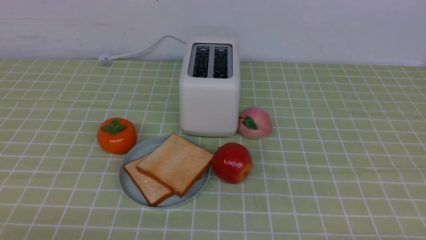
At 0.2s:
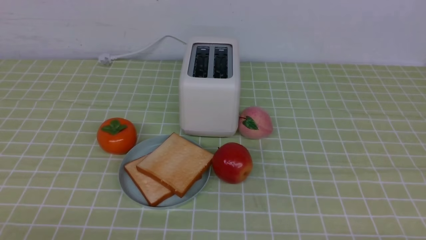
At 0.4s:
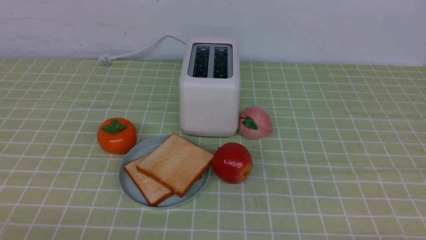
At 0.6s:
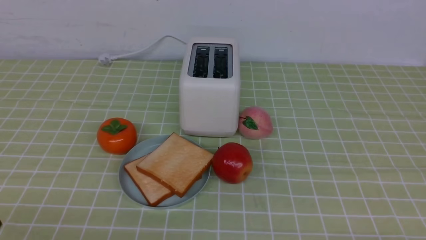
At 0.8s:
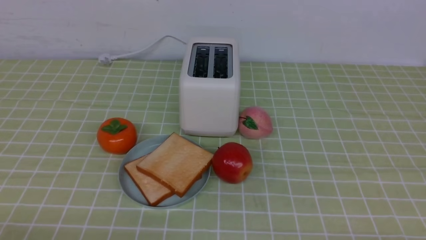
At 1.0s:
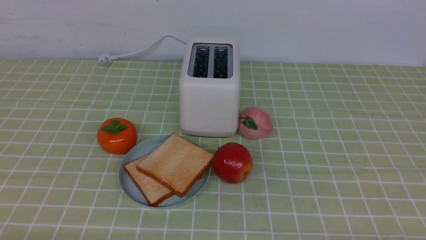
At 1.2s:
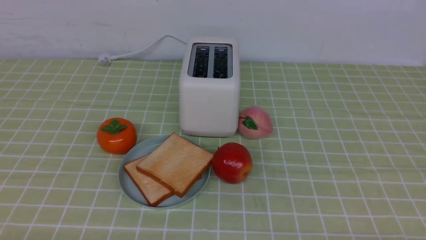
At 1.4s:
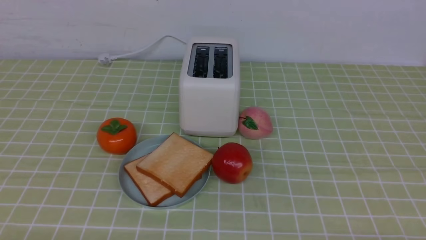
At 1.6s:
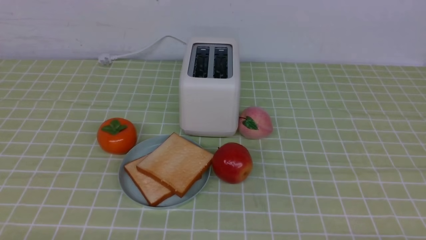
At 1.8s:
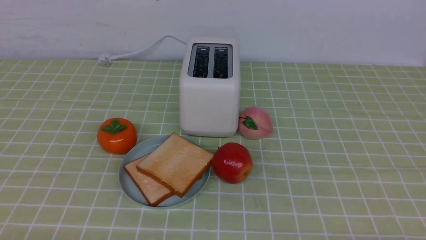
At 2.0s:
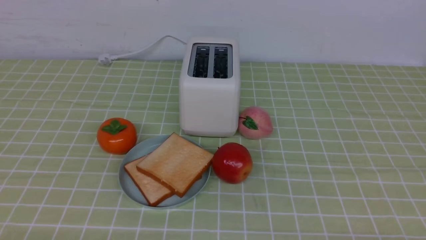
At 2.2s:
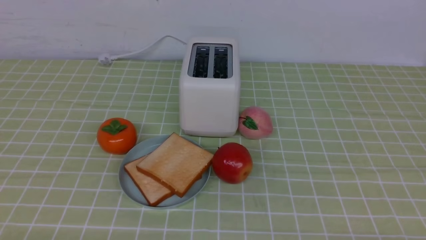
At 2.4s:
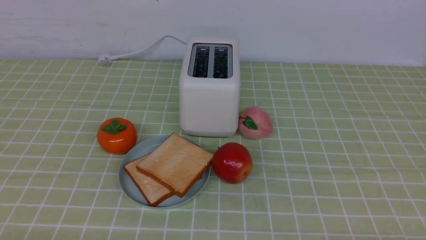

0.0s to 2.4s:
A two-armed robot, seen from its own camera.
Task of the whole recording: take toasted bread from bread machine on green coffee tablecloth place on plate.
1.2s to 2.4s: Both grippers stay about where they are.

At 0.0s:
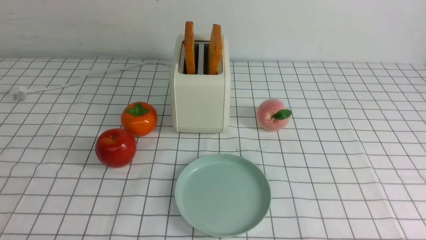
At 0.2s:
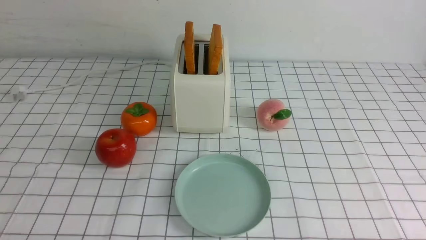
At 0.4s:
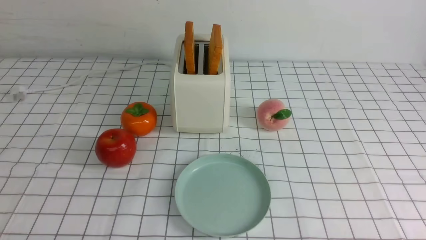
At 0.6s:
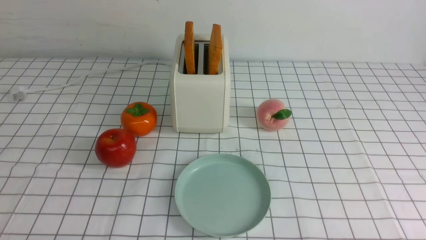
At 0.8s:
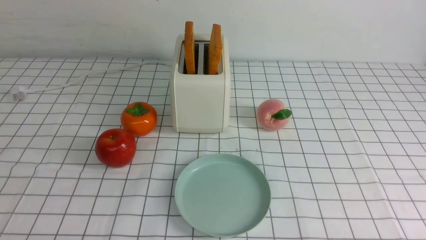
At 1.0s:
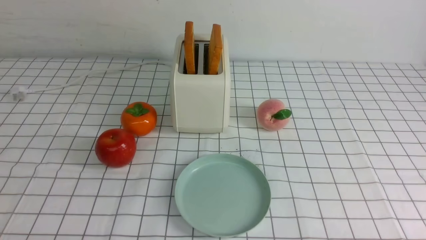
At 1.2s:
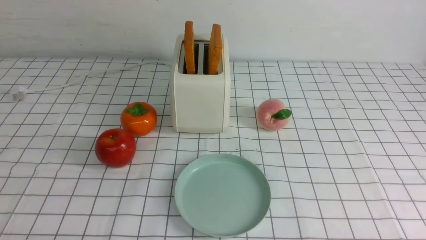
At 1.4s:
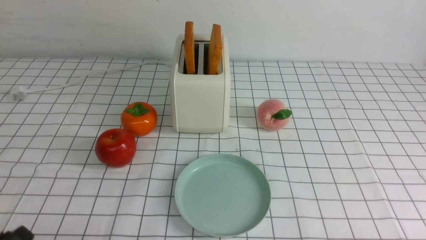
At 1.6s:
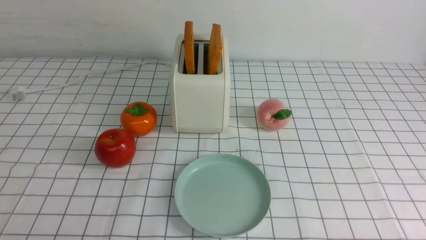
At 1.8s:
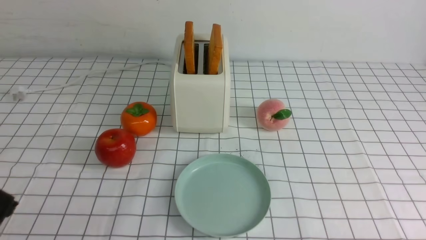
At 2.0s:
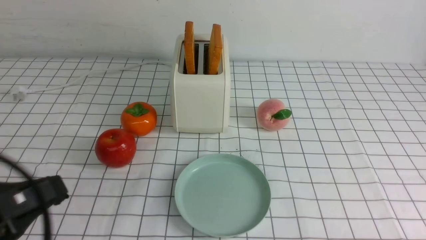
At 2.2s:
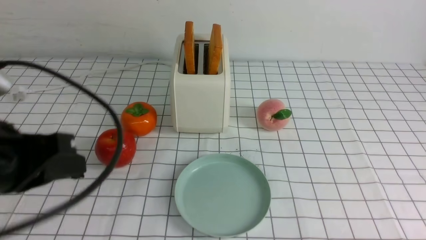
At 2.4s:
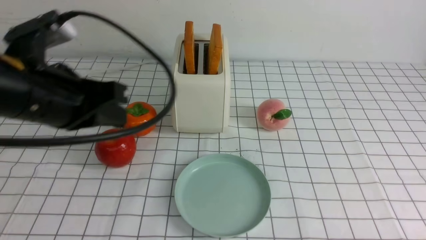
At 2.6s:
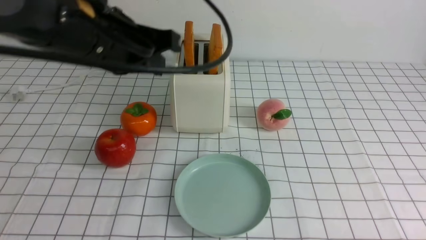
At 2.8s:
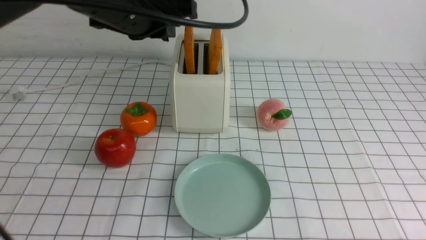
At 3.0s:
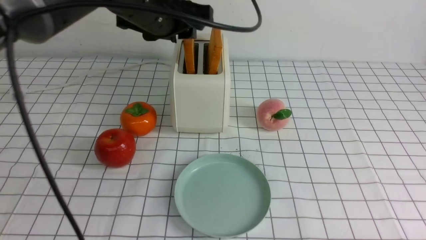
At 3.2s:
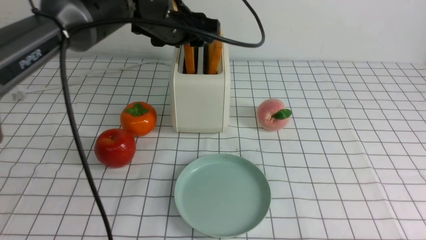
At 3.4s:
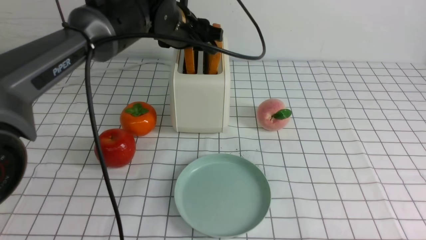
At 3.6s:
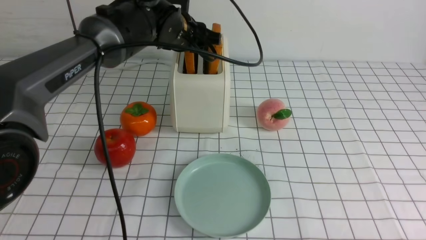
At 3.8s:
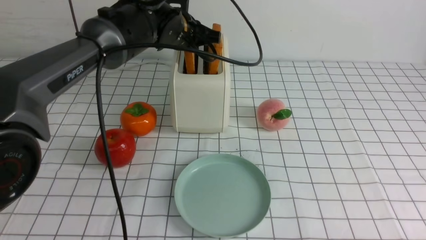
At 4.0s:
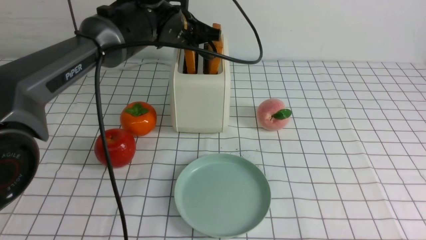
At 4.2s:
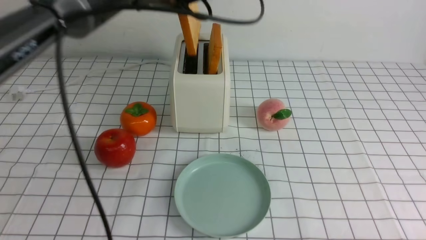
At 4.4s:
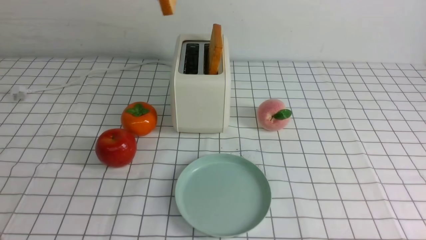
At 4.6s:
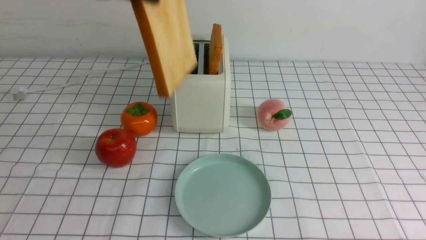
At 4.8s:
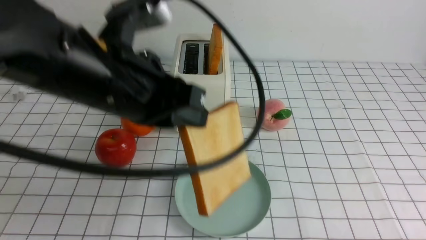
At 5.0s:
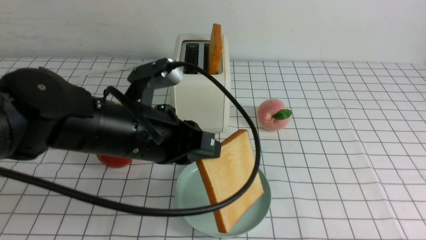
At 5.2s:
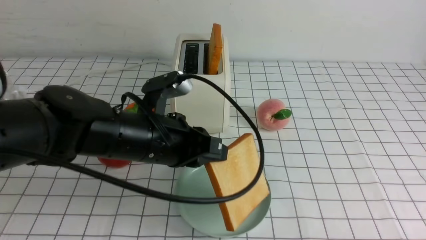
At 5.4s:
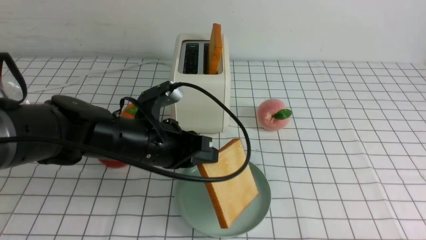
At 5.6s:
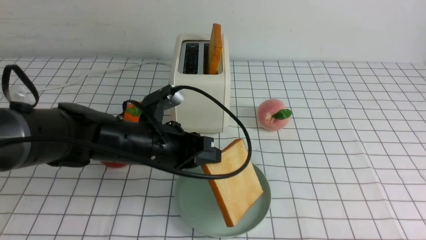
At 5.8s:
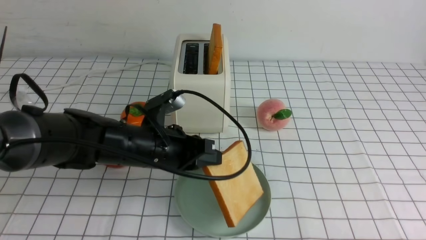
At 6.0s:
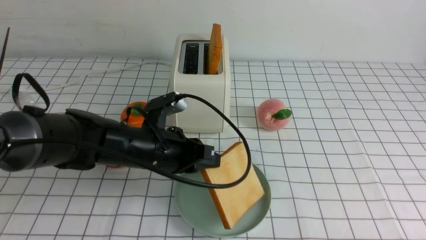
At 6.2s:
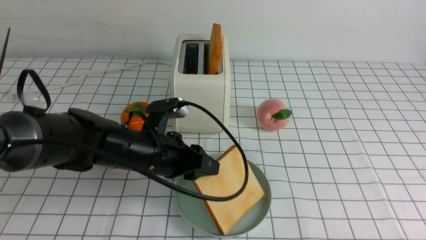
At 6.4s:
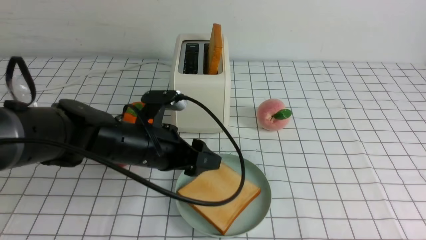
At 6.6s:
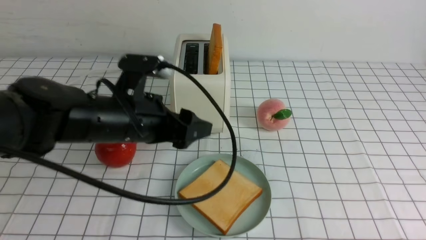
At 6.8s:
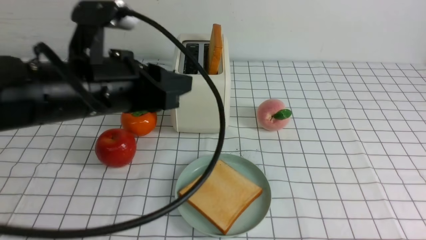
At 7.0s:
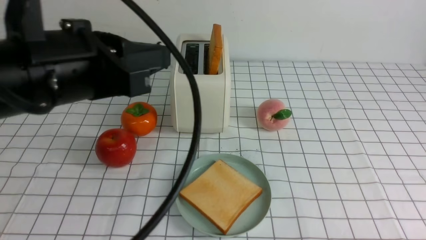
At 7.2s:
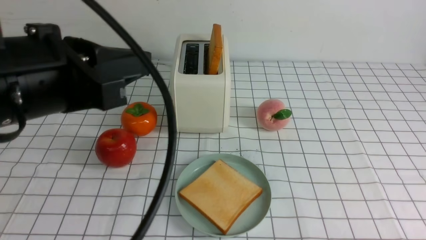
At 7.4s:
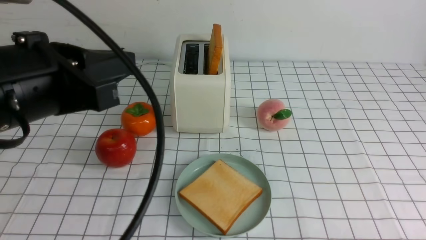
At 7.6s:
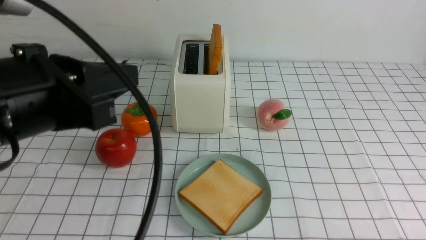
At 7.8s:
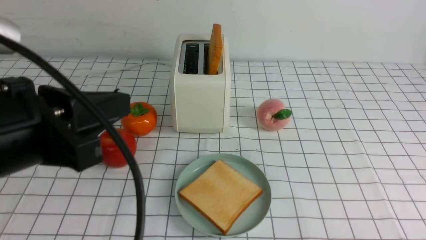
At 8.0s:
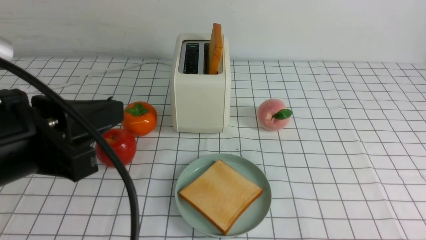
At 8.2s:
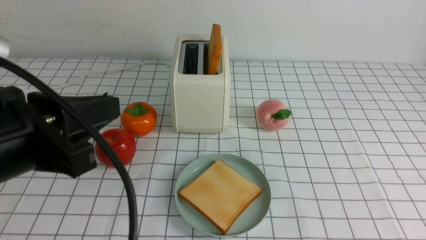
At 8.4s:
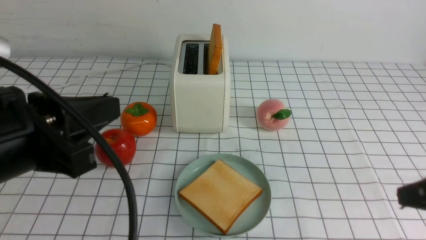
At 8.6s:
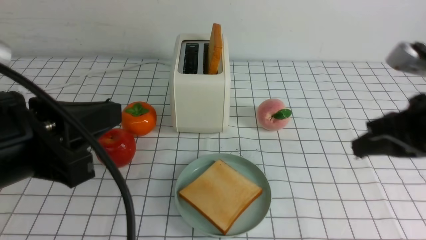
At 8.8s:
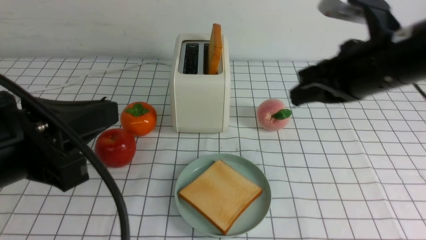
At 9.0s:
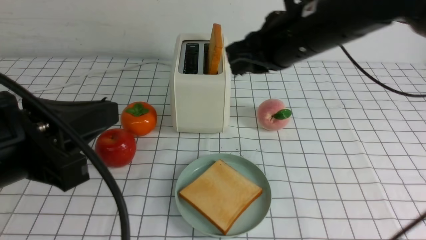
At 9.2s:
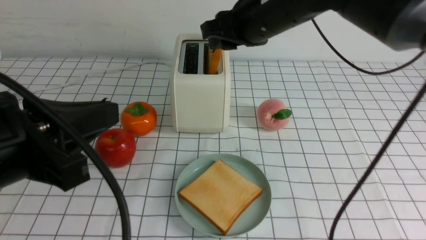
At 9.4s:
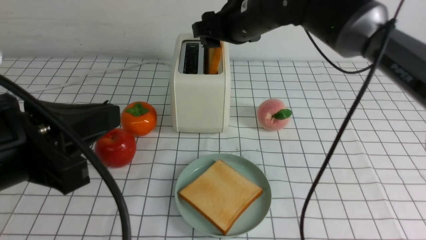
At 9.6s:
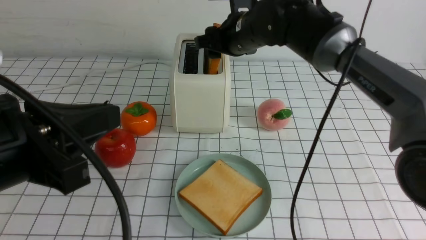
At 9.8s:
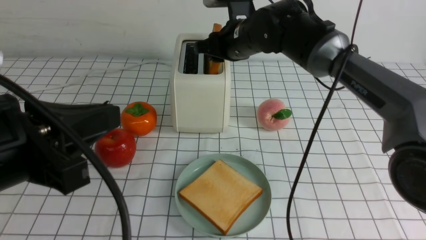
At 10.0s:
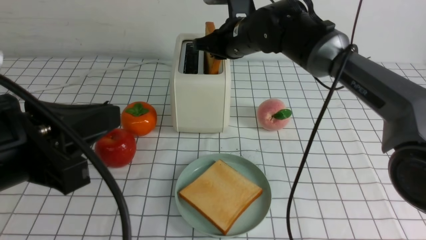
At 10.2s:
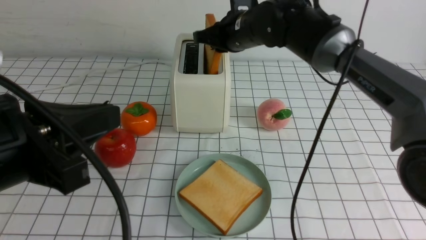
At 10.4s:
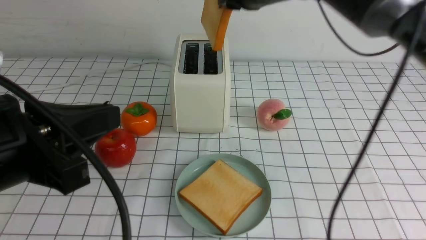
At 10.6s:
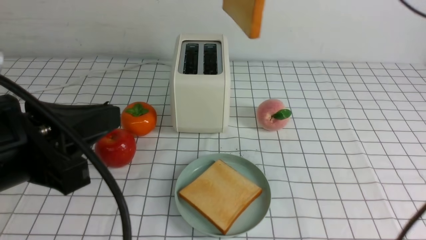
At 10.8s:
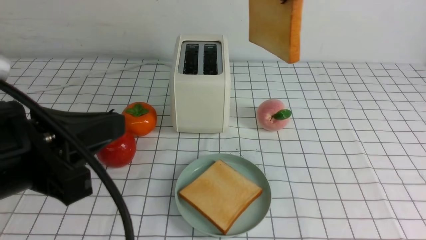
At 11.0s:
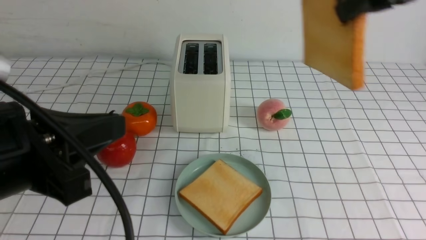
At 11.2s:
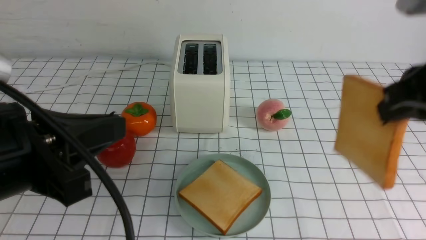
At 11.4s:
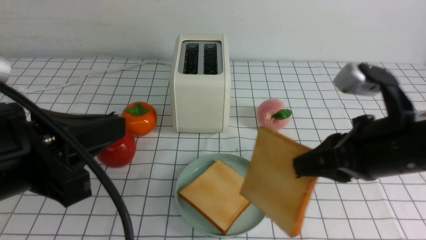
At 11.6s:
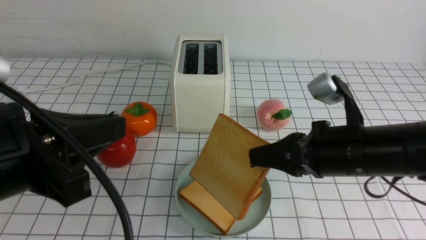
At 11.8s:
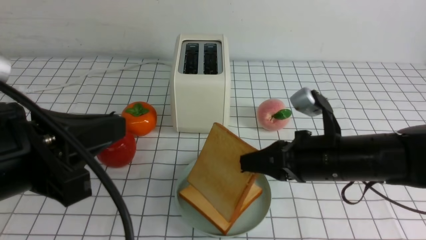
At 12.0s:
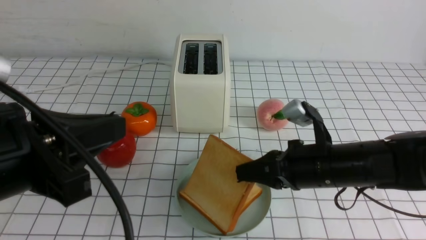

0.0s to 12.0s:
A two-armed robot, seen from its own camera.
Task of the whole recording: take toasted bread from bread machine on white checkered table place on plate.
Step, 0.0s to 4.0s: use the left arm to take out a slice of bread.
Step, 4.2s to 6.4s: use the left arm to put a slice of bread into the empty plate.
Step, 6.6s to 10.2s: use the right arm to take out a slice of bread.
1.6s to 3.0s: The left gripper is displaced forward, to the right and upward by some 40 cm, and closes, then reopens.
3.0s to 4.4s: The left gripper moves upward and backward, some 10 cm, and closes its fingers.
4.4s to 6.0s: The left gripper heads downward, covering roughly 25 cm.
6.0s to 7.6s: The left gripper travels upward, backward and to the left by approximately 25 cm, and closes up.
7.6s to 9.0s: The right gripper goes approximately 40 cm forward, upward and to the left.
9.0s to 10.4s: The right gripper moves forward, roughly 5 cm, and opens, then closes once more.
10.4s to 12.0s: The right gripper is displaced downward and backward by about 25 cm.

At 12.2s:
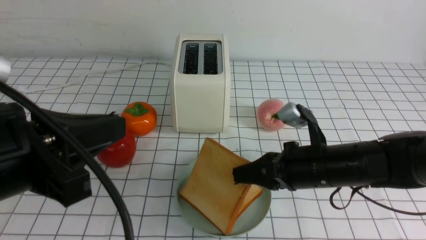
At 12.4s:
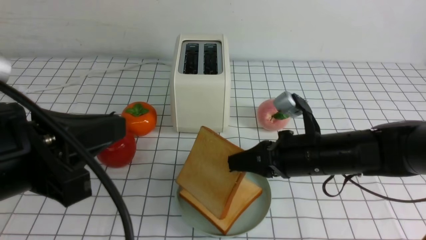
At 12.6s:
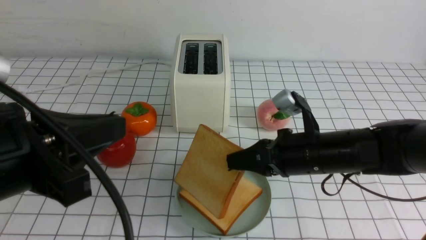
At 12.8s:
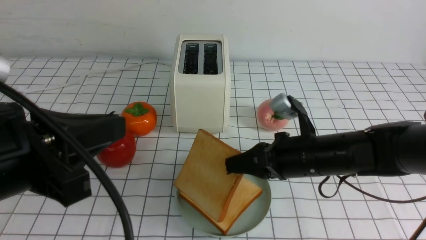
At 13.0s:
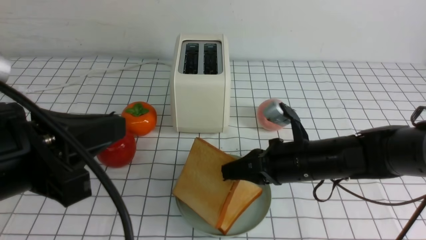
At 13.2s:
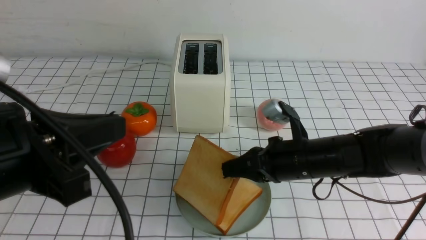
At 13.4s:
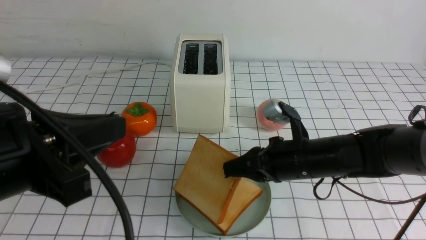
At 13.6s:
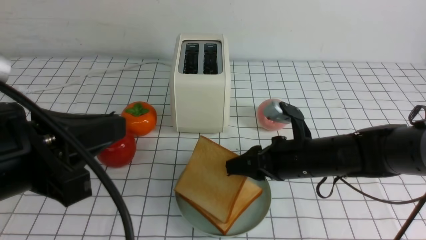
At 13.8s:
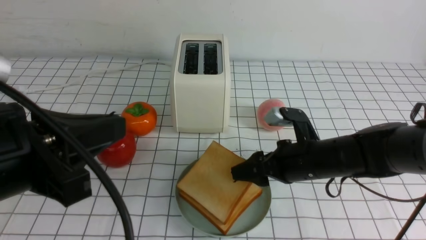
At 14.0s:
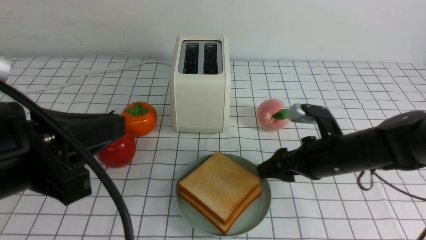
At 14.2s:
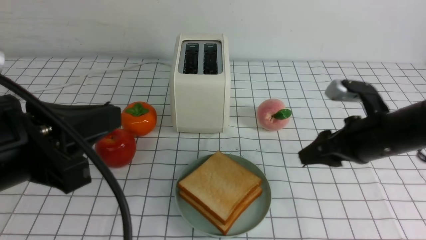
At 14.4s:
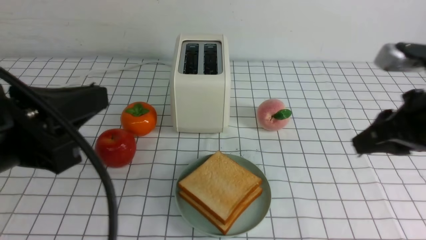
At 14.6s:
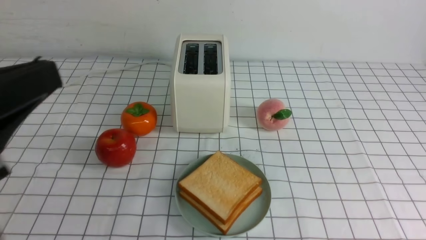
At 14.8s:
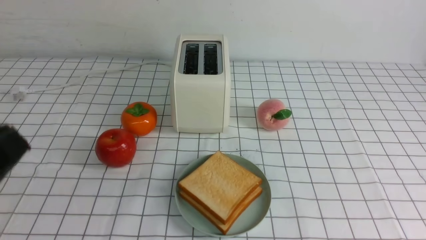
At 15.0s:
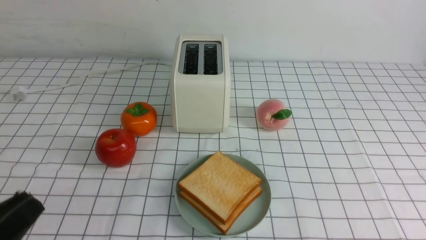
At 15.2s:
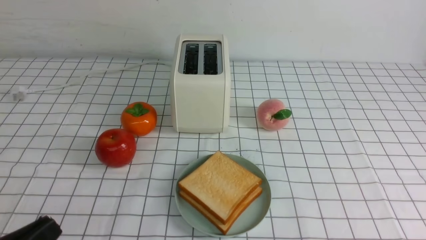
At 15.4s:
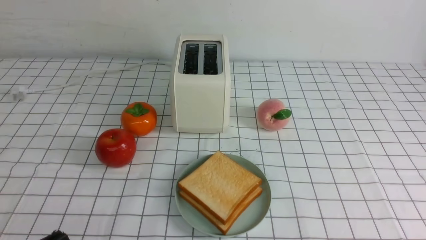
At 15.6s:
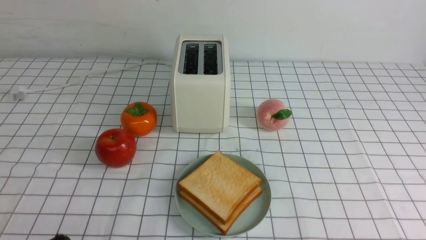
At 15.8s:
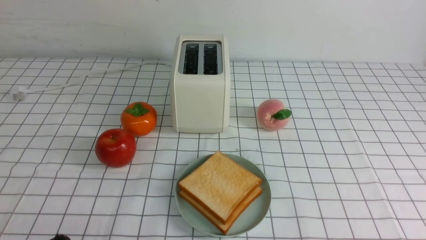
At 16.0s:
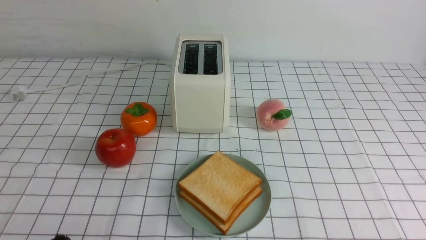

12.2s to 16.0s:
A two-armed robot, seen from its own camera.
Task of the whole recording: take toasted bread from bread machine on white checkered table place on plate.
Step, 12.2s to 14.0s: use the right arm to put a slice of bread into the plate.
12.2s to 13.4s: The grippers move only a little.
13.4s to 14.8s: The right gripper is displaced backward, upward and to the right by some 35 cm, and closes; the left gripper shifts about 10 cm backward.
14.8s to 16.0s: The left gripper heads downward, covering some 10 cm.
